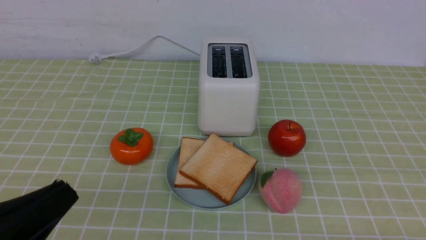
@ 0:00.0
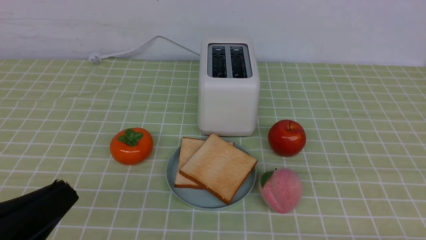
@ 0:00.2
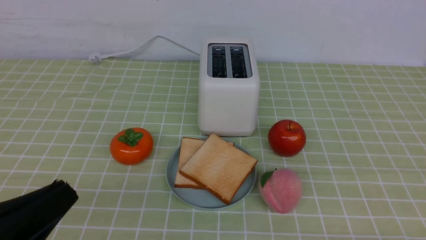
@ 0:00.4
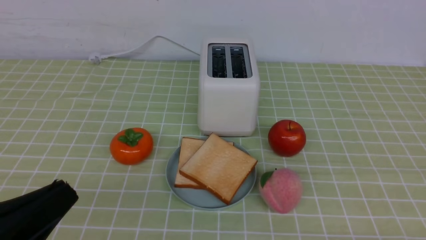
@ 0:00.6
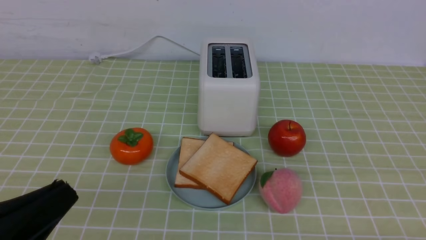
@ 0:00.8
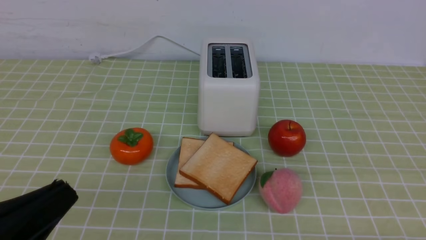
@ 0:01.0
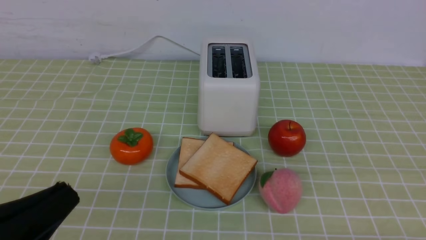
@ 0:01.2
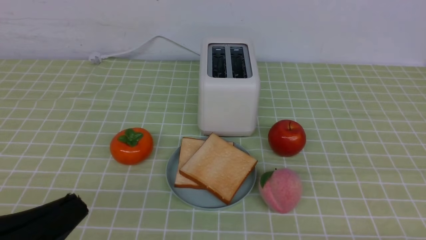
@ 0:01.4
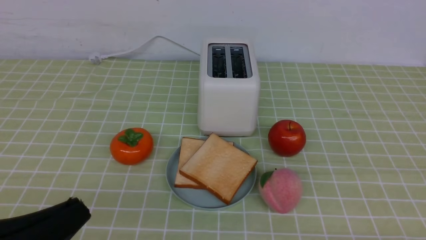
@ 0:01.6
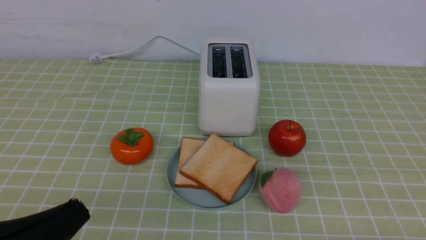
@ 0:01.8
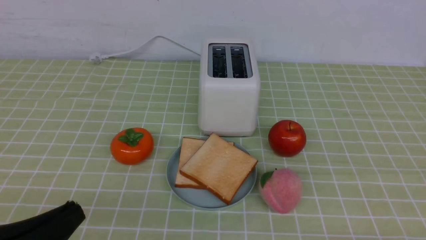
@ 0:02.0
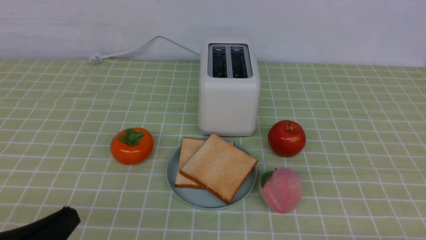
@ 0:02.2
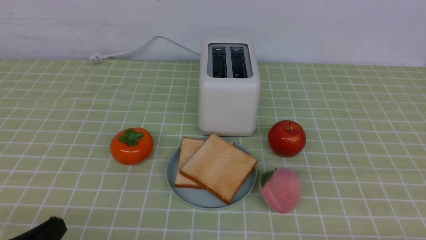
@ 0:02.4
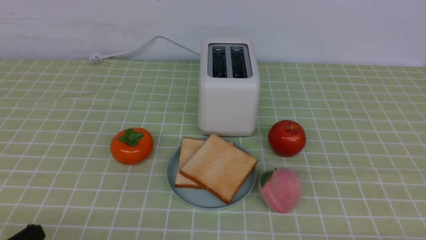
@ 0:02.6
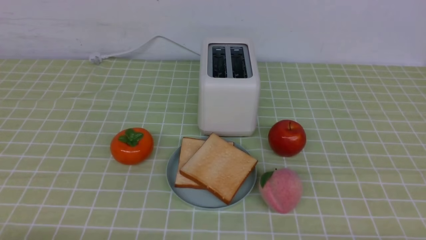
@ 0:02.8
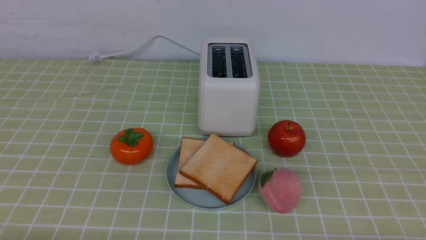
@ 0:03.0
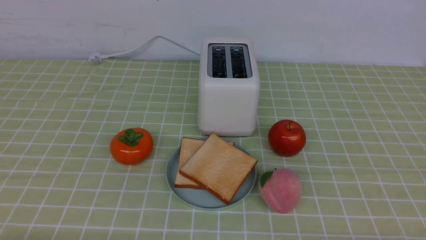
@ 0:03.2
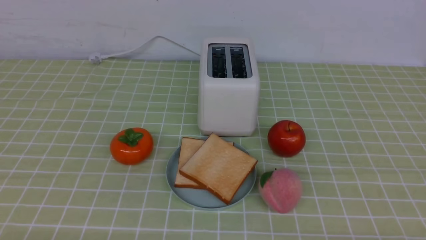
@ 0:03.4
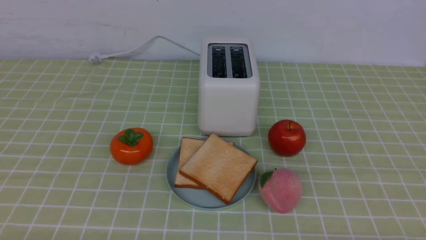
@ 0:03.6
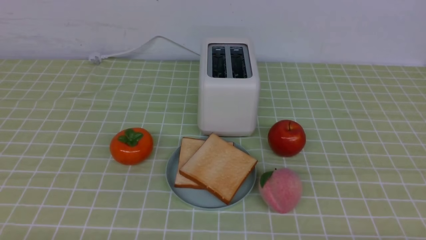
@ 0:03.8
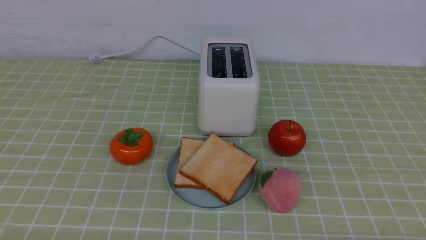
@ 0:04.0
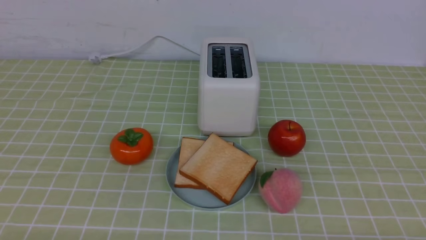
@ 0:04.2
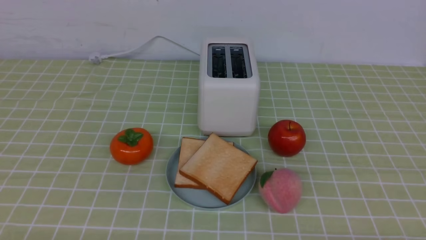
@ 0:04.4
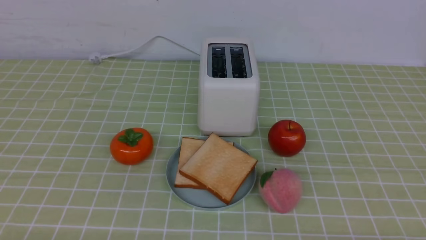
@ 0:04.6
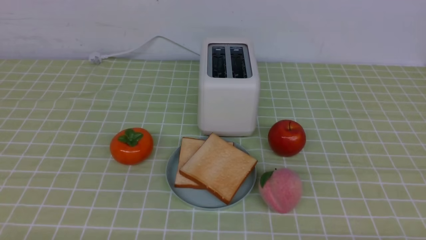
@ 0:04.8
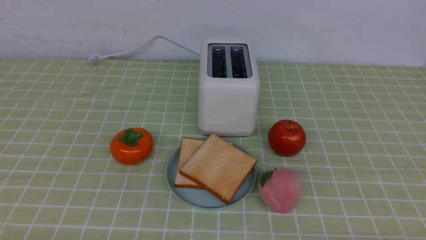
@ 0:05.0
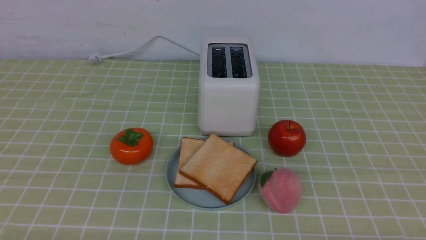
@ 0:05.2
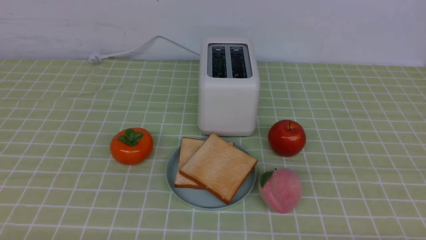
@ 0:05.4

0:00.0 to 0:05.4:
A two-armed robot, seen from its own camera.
Task of the whole recording: take toasted bread from bread machine on green coffee tablecloth place on plate.
0:00.0 to 0:01.4: Both grippers stay about where they are.
0:01.4 to 0:02.8: The left gripper goes some 10 cm downward.
0:04.0 to 0:05.4: The two grippers keep their place.
